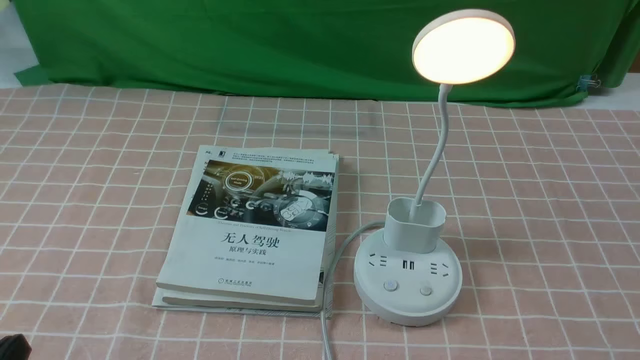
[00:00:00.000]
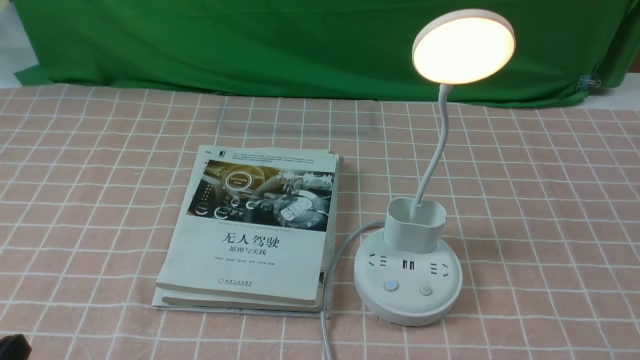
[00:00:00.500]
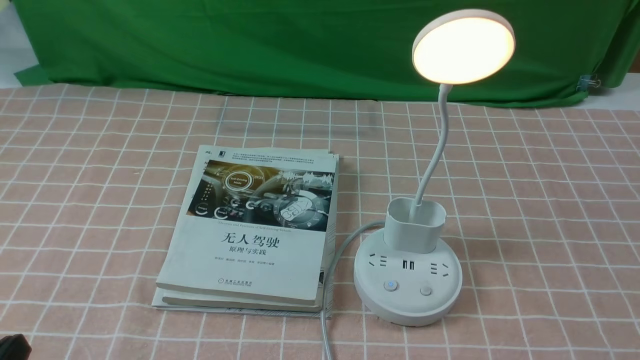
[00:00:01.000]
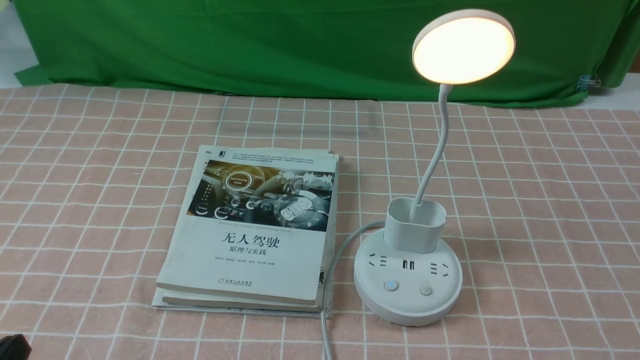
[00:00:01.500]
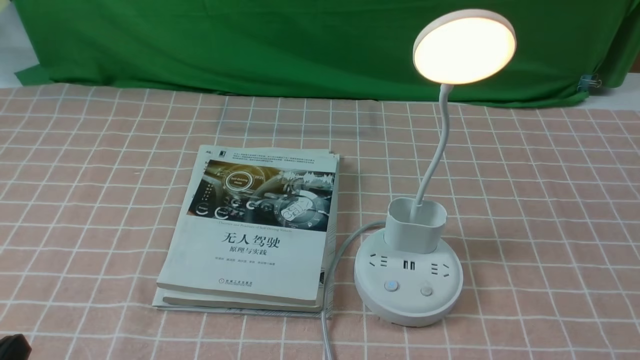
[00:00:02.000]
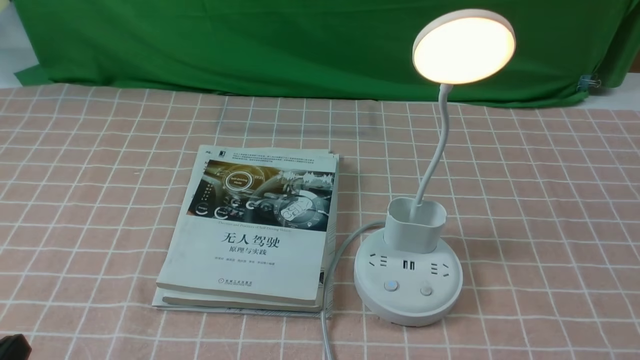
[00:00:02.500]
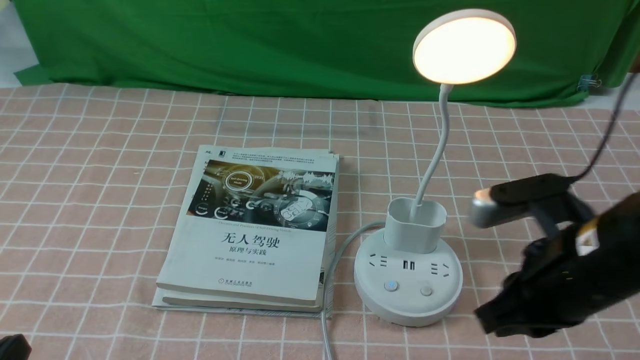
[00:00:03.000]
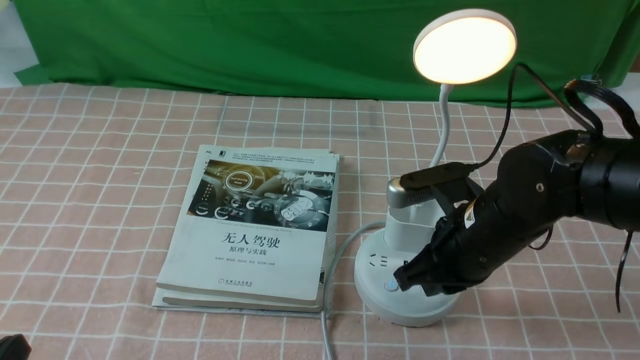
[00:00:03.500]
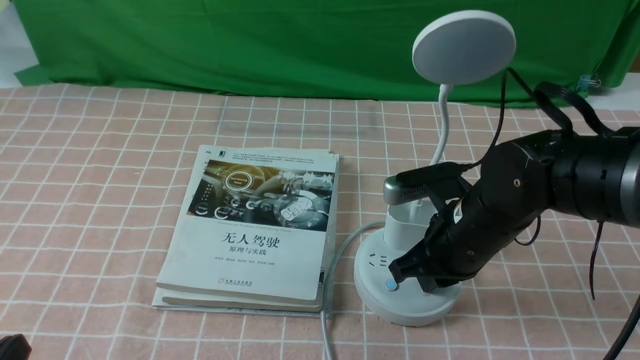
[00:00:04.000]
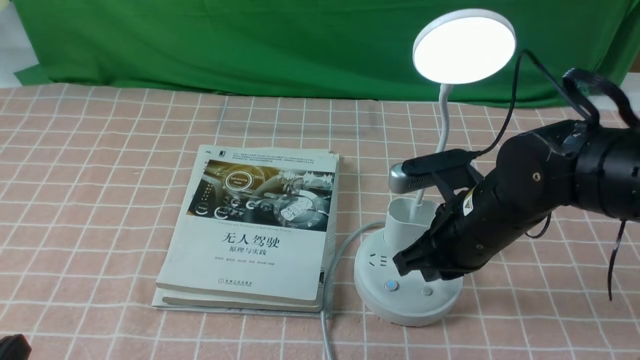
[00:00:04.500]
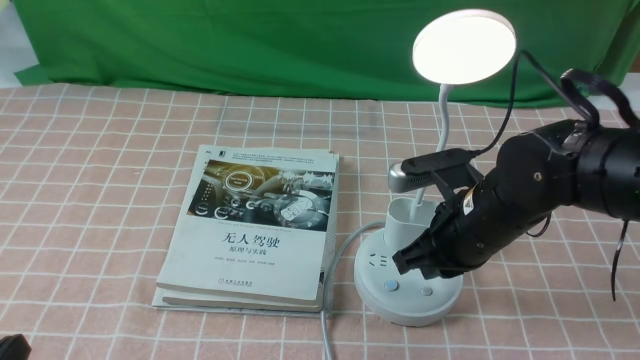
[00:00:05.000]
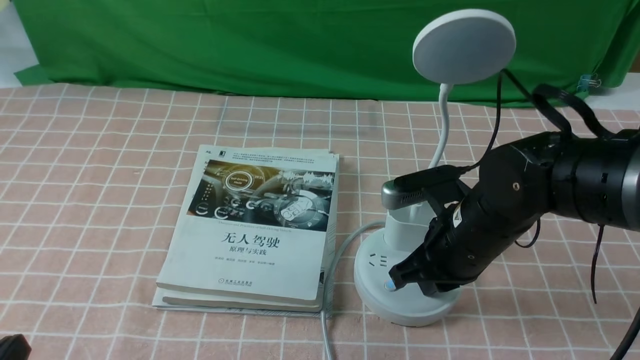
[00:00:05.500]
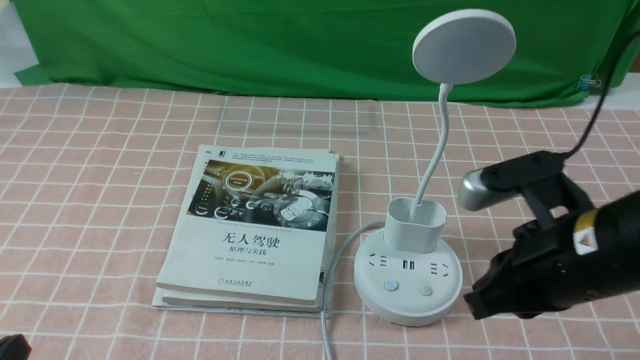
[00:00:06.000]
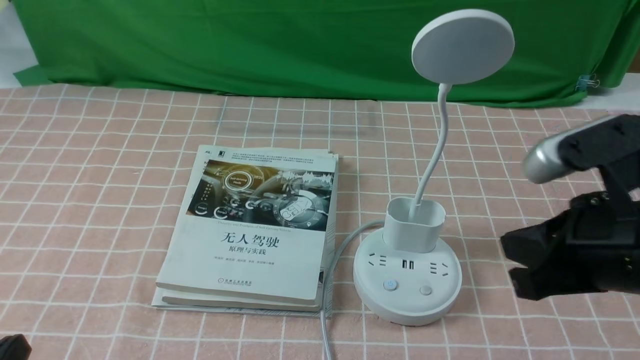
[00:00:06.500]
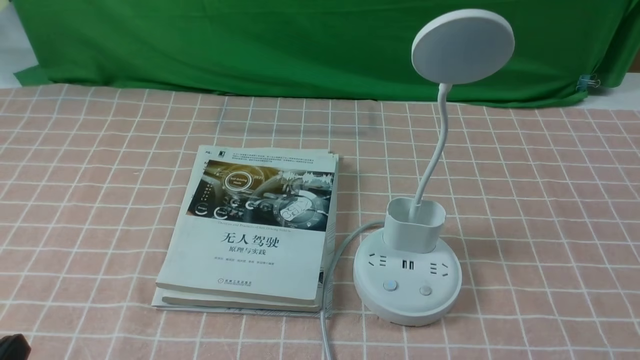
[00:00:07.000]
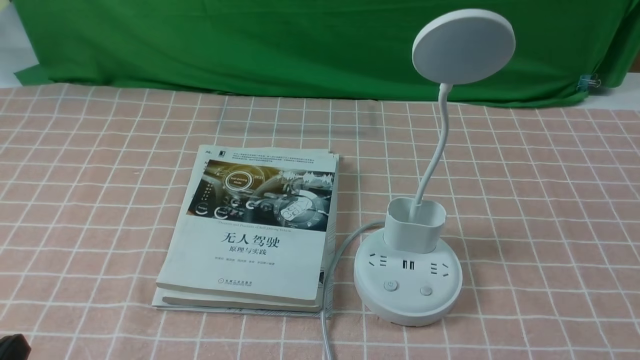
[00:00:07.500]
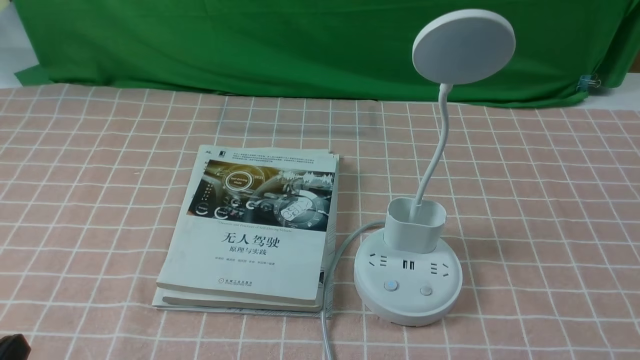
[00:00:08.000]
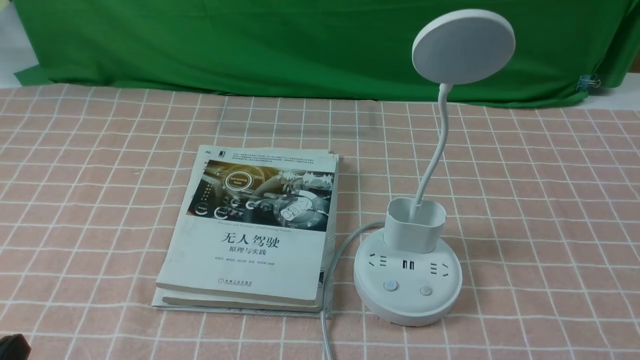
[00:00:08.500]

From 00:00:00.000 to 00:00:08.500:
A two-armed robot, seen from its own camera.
Task of the whole recording: turn off the table lamp on the pink coffee tablecloth by hand.
Step, from 00:00:00.000 to 00:00:05.500: use the right arm to press the button switch on the lamp holder.
From 00:00:02.000 to 00:00:04.000: The right gripper shifts approximately 30 cm forward and to the left, and closes its fingers.
From 00:00:04.000 to 00:00:06.500: The right gripper heads backward, upward and to the right, covering roughly 20 cm.
From 00:00:06.500 to 00:00:08.500: The right gripper moves backward, downward and to the right, roughly 20 cm.

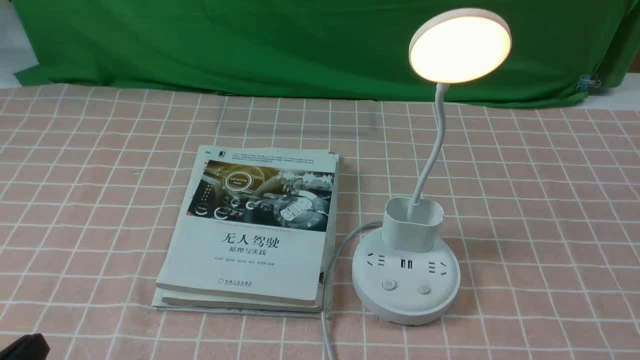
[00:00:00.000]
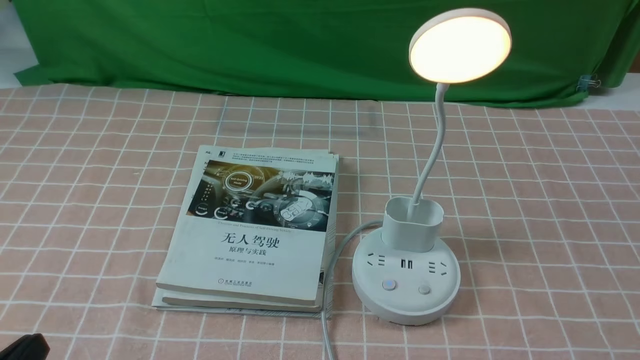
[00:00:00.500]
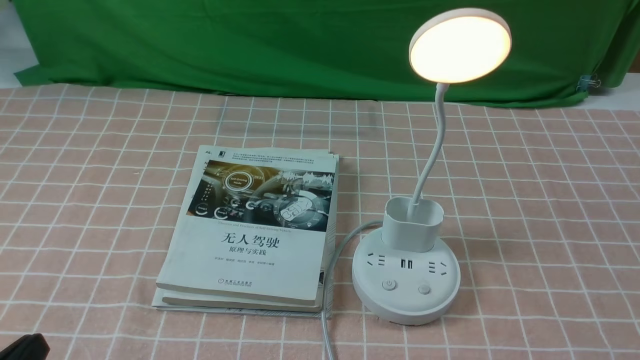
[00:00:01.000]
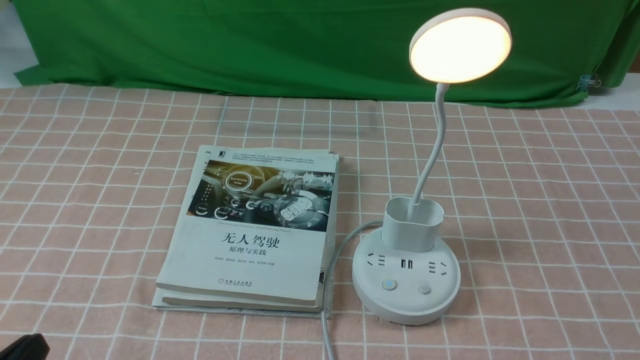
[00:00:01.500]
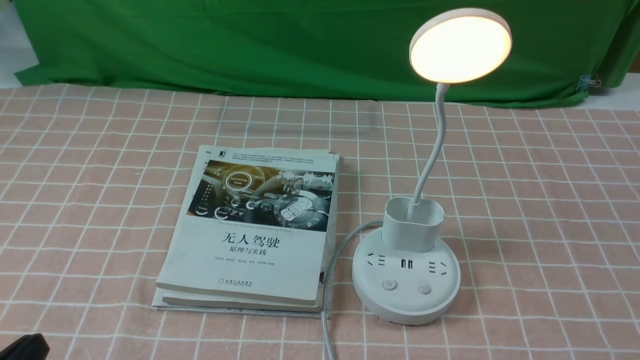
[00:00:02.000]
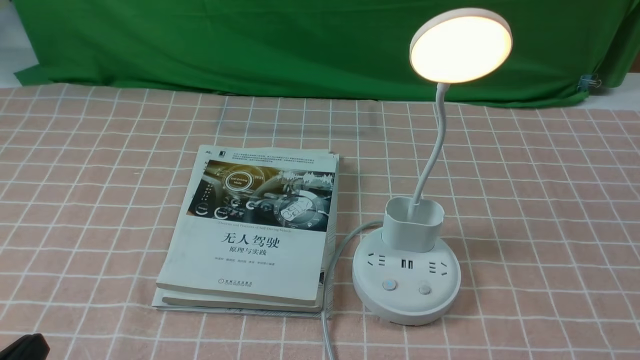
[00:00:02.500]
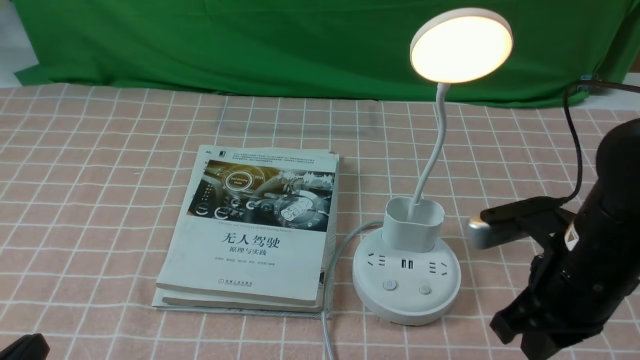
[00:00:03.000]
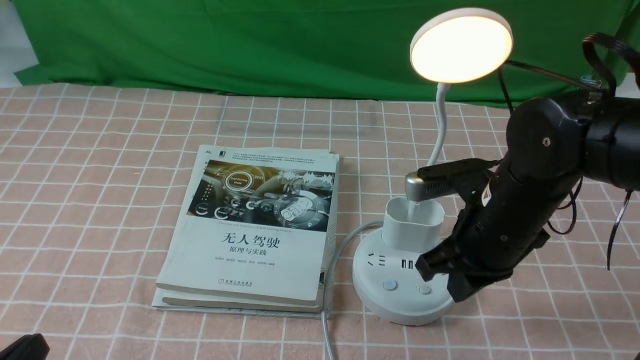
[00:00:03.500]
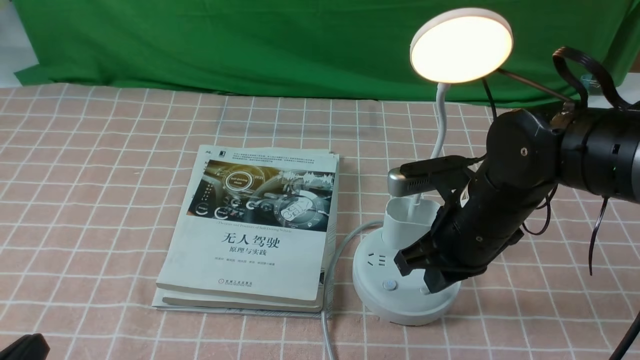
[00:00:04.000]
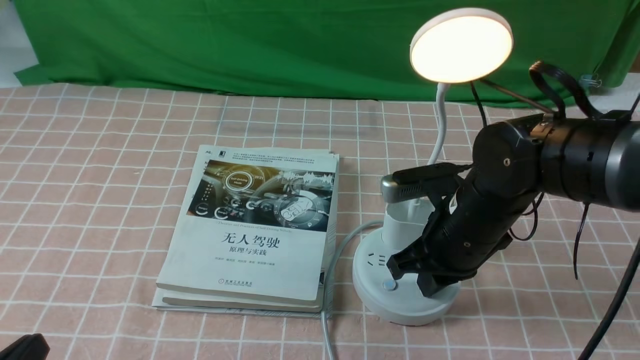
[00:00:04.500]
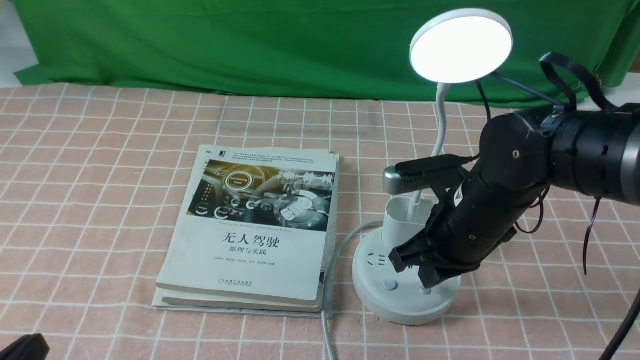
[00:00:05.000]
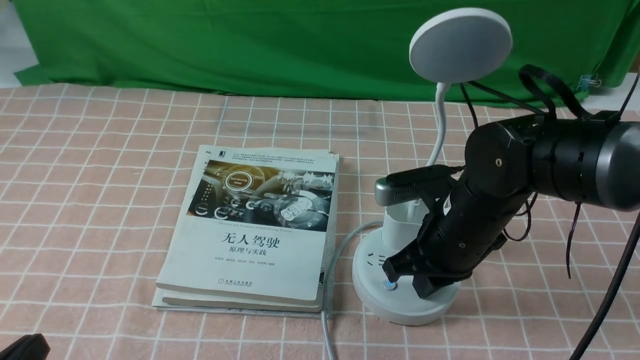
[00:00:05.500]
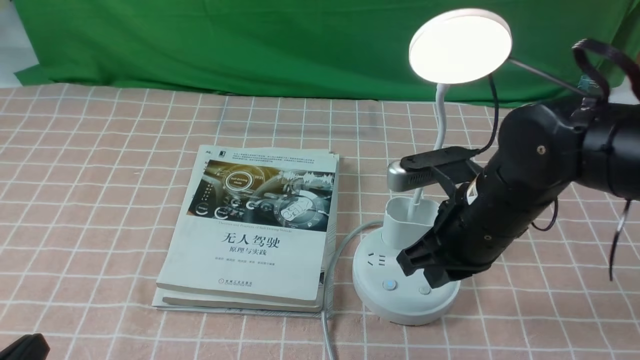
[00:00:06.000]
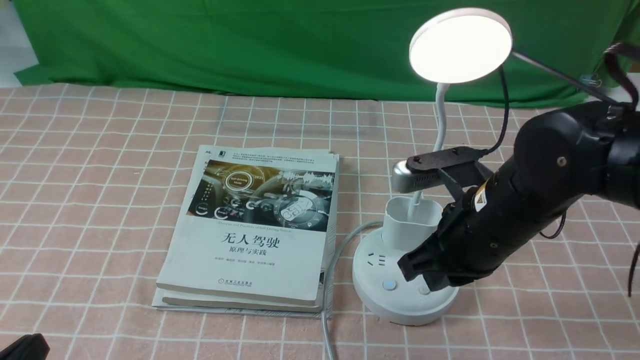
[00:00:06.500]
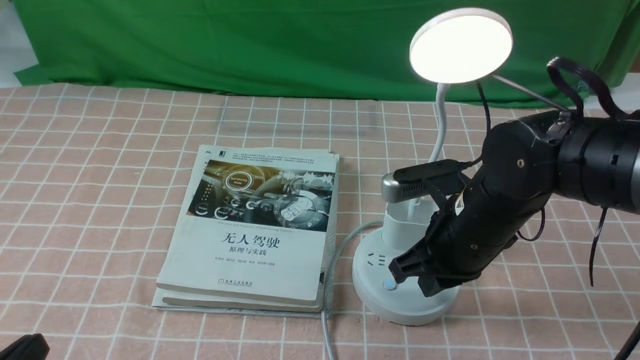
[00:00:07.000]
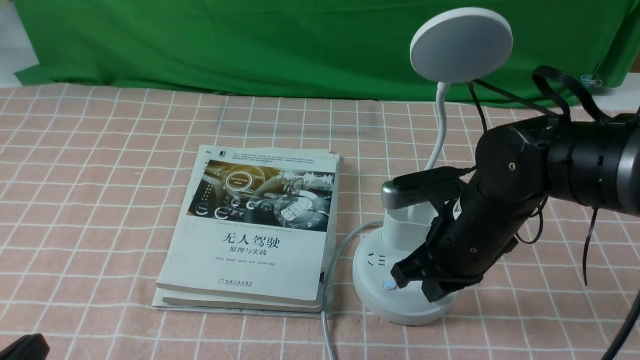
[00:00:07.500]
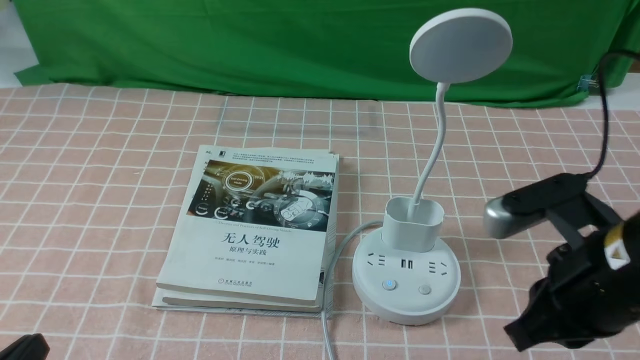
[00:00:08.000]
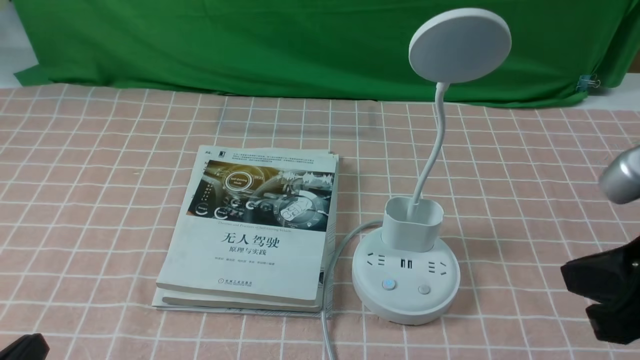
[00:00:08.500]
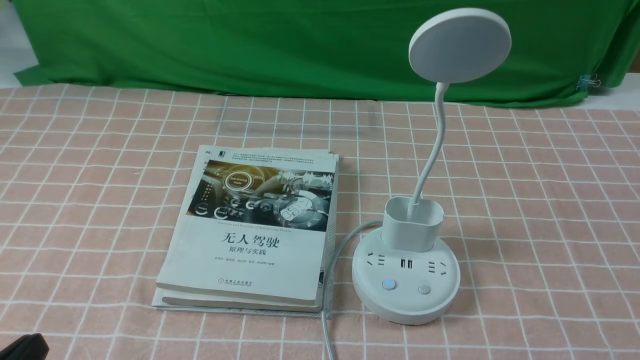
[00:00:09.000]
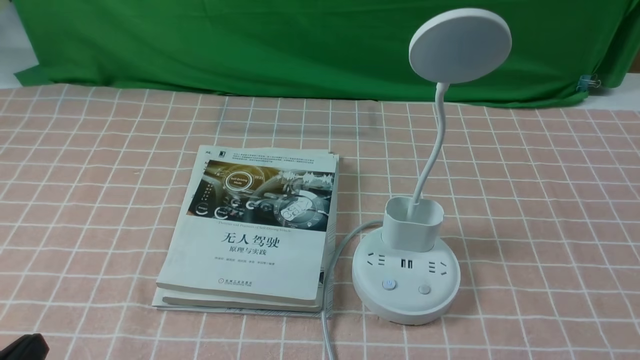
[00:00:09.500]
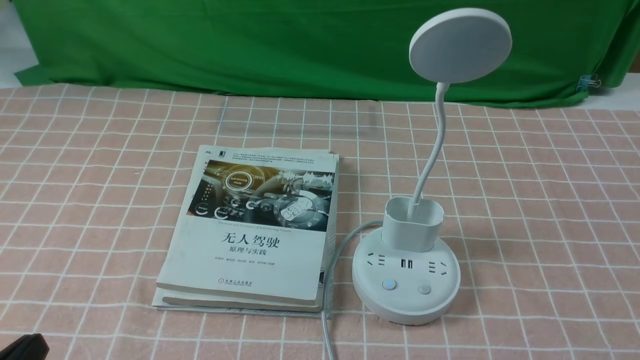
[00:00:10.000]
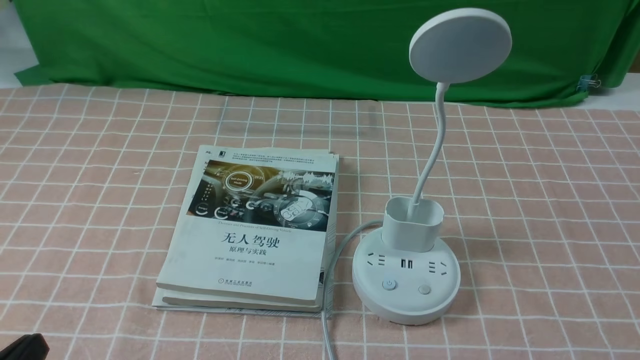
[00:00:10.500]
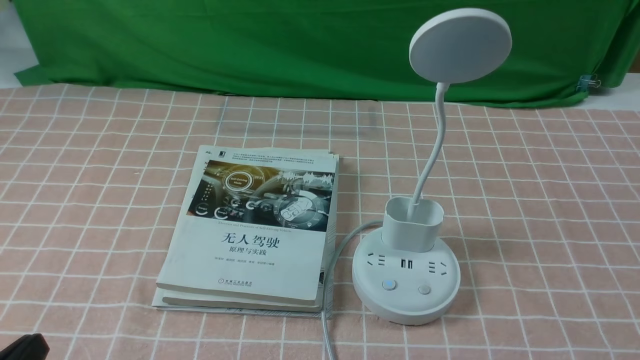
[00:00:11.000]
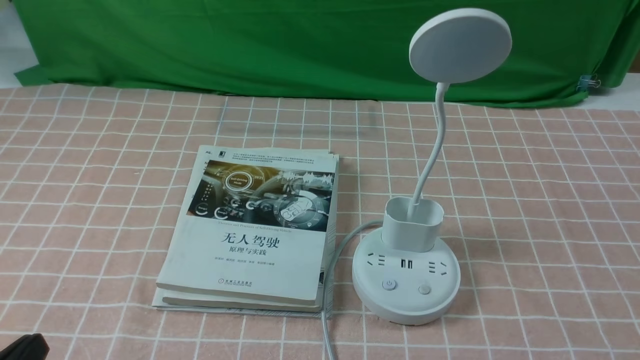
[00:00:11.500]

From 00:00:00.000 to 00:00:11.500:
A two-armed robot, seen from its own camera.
Task of the whole recording: turn off the table lamp on the pink coffee tablecloth by hand.
Step, from 00:00:00.000 to 00:00:07.500: use the right arm to press the button switch on the lamp holder.
From 00:00:02.000 to 00:00:04.000: The right gripper is displaced forward and to the left by approximately 30 cm.
From 00:00:04.000 to 00:00:07.500: The grippers stay close to where they were, moving slightly.
From 00:00:07.500 to 00:00:09.500: The right gripper goes approximately 30 cm backward and to the right.
